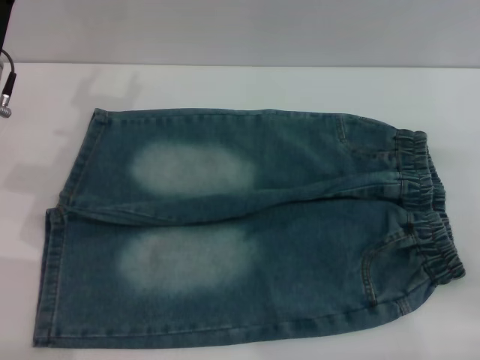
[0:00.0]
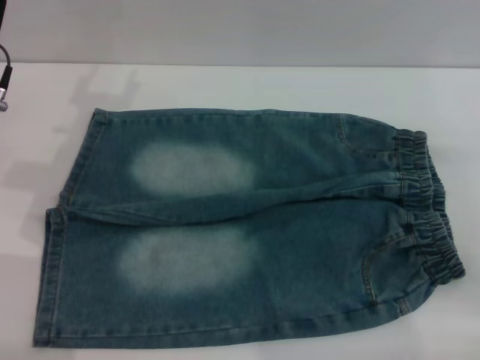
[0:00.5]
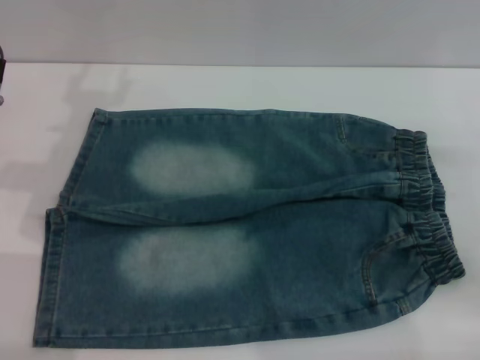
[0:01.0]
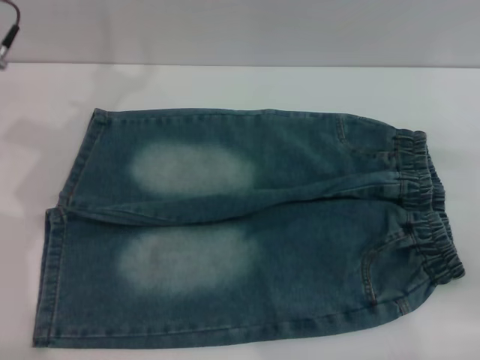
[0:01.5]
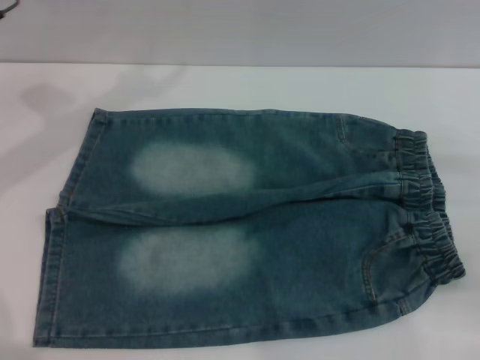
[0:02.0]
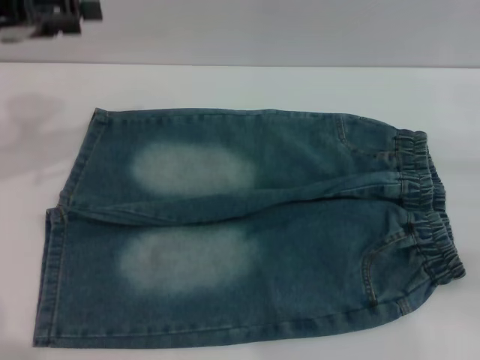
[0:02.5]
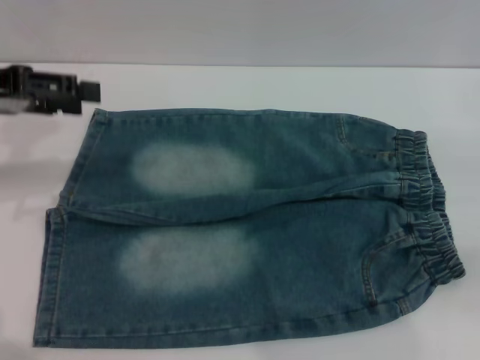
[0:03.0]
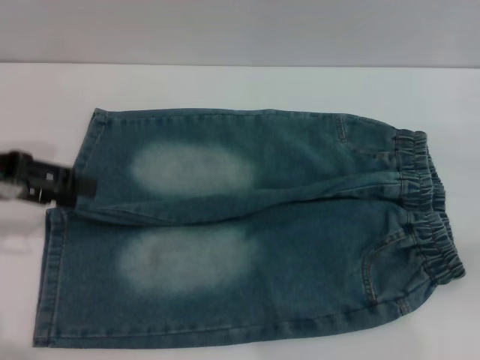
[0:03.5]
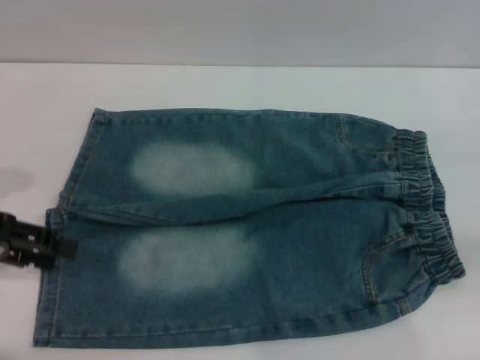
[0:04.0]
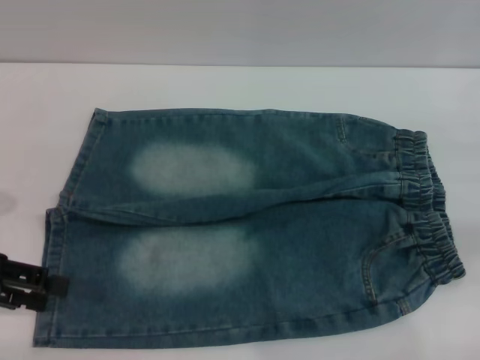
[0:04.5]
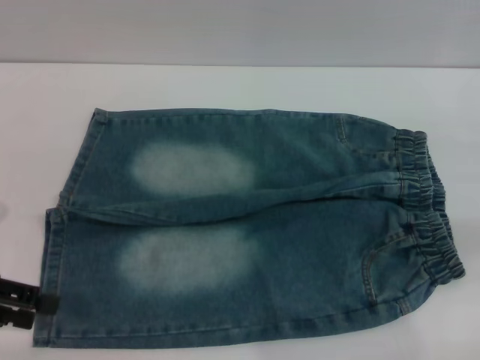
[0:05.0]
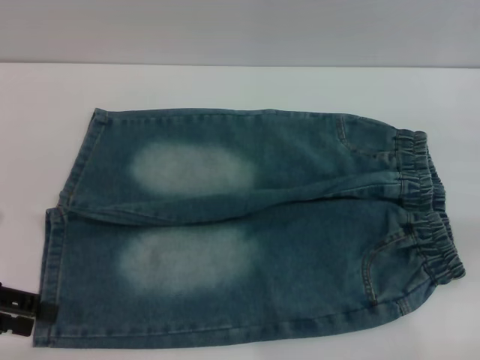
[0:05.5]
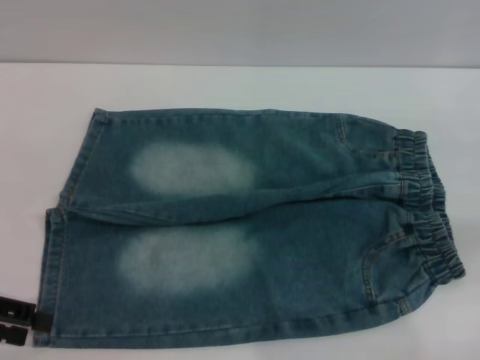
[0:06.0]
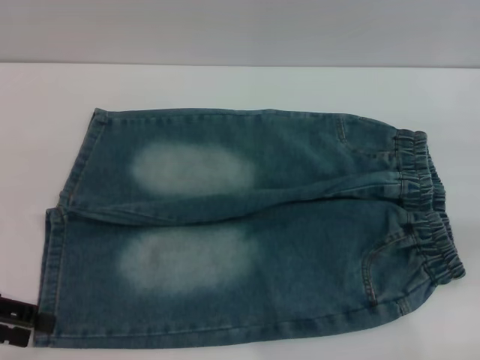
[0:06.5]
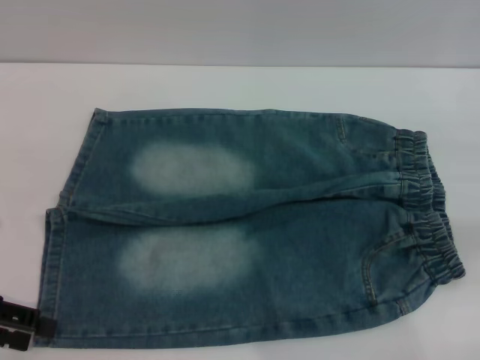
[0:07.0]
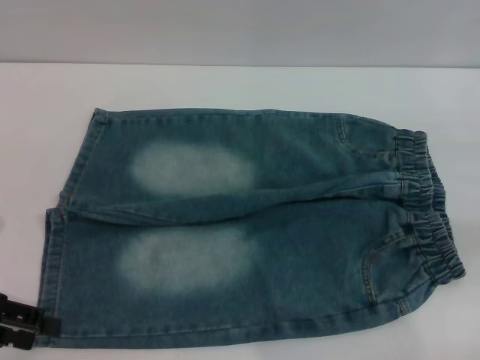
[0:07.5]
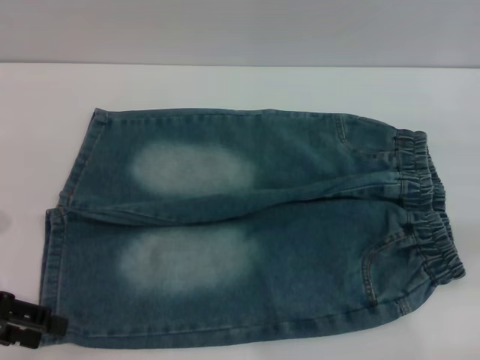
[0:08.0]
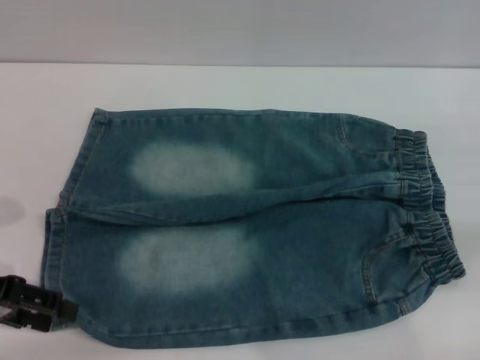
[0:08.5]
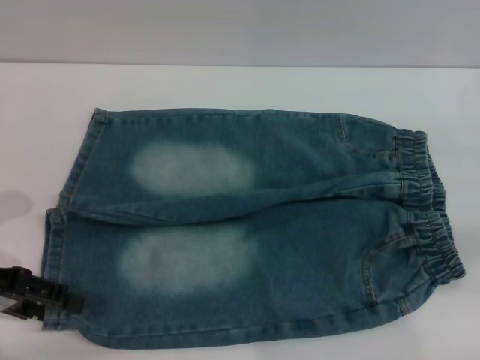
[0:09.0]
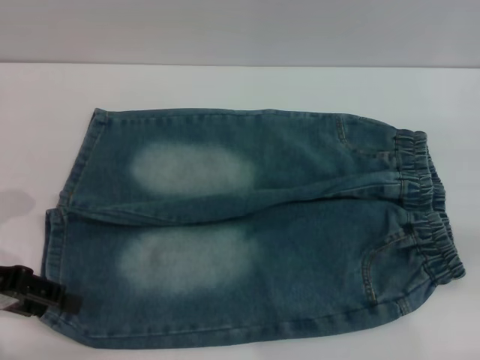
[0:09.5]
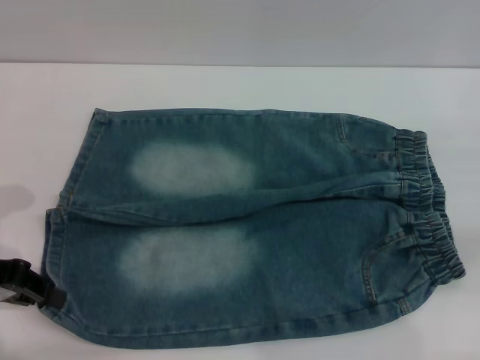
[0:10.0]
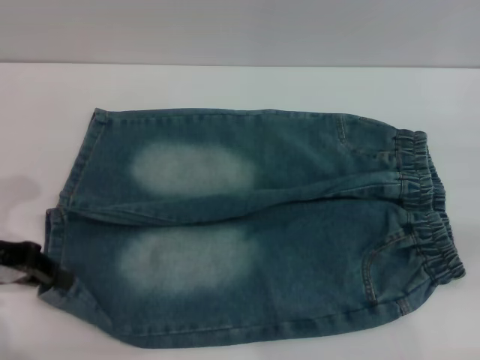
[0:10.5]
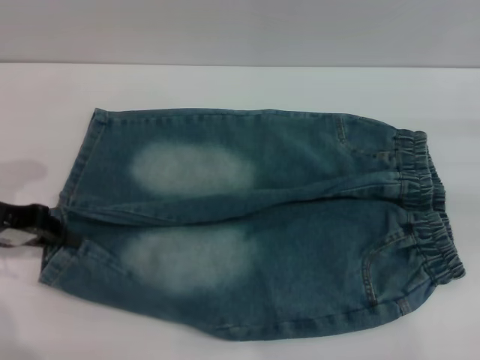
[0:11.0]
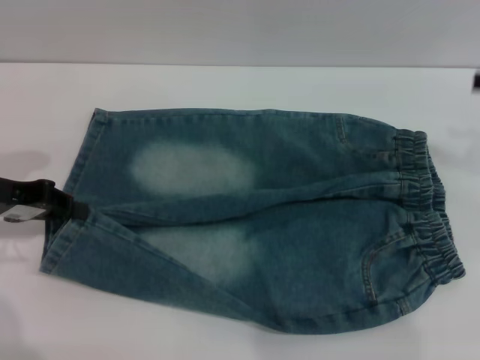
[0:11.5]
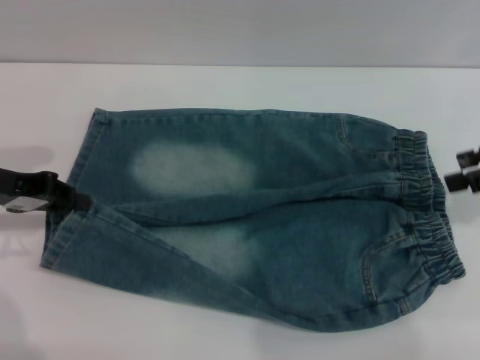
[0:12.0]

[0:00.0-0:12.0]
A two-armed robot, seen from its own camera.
0:00.0 to 0:02.0: The left gripper goes some 10 cm upward and forward.
0:02.0 to 0:04.0: The left gripper moves backward, downward and to the left, roughly 15 cm.
0:04.0 to 0:06.0: The left gripper ends up some 5 cm from where it was.
0:08.0 to 0:10.0: The left gripper closes.
0:10.0 to 0:12.0: The left gripper is displaced forward by about 5 cm. Meanwhile the right gripper moves upward, to the left and forward, roughly 10 cm.

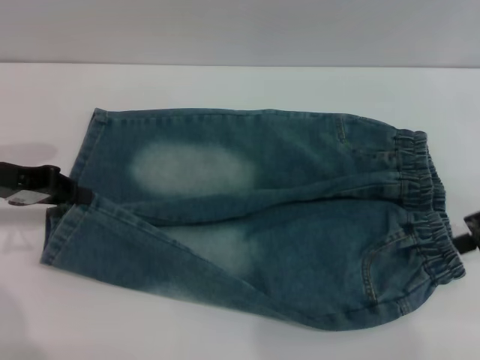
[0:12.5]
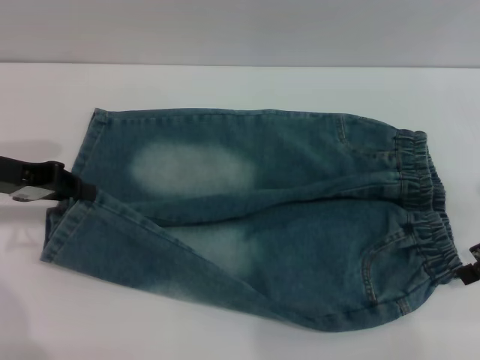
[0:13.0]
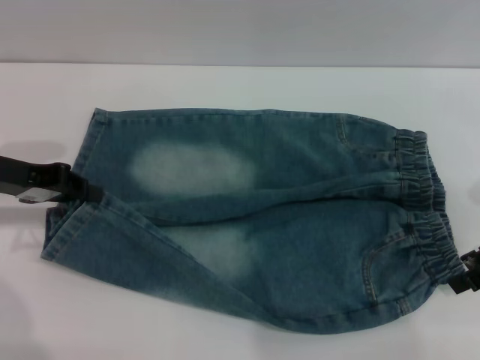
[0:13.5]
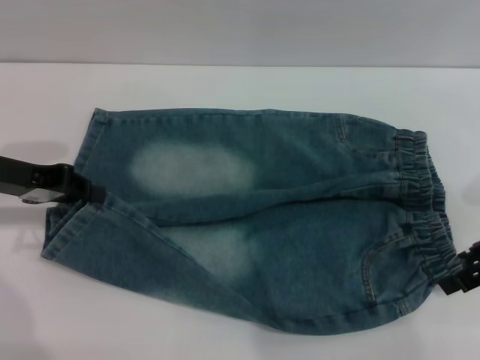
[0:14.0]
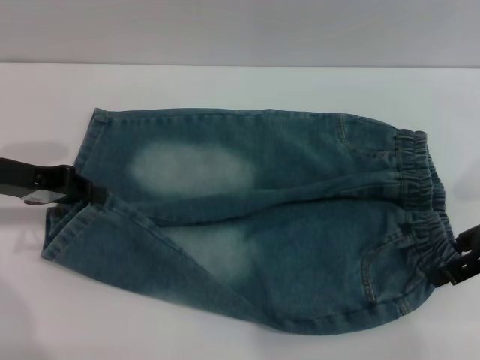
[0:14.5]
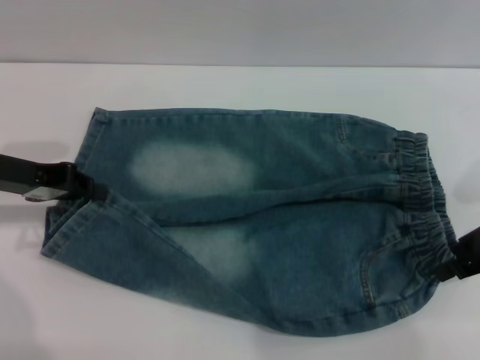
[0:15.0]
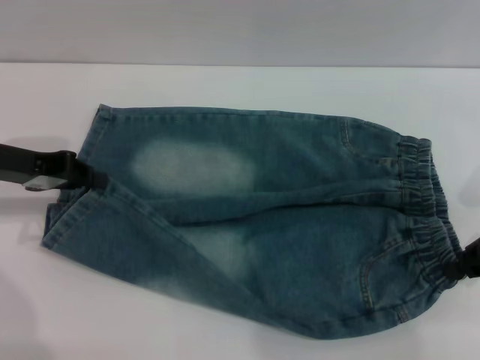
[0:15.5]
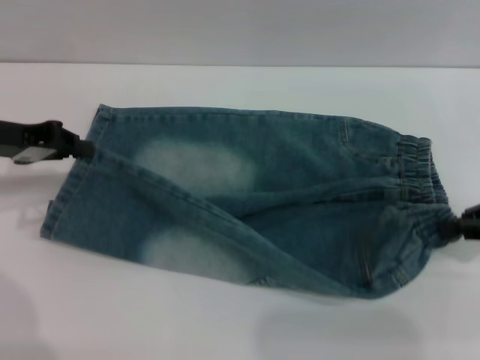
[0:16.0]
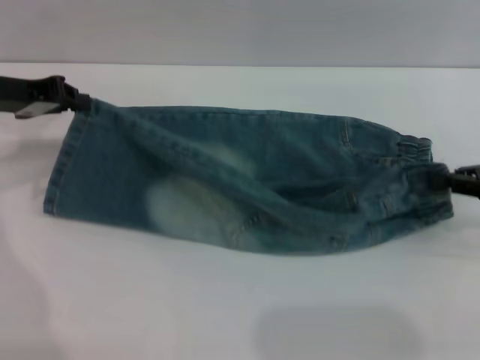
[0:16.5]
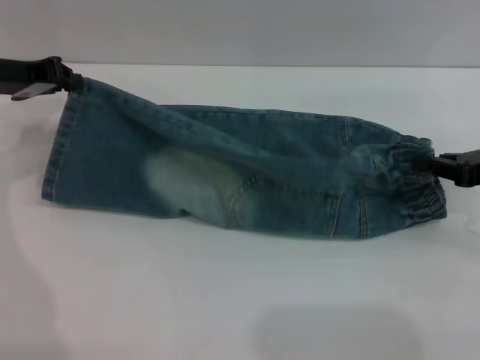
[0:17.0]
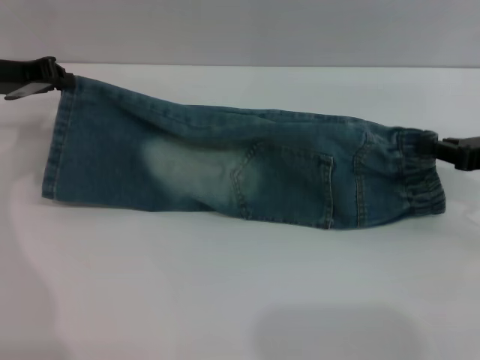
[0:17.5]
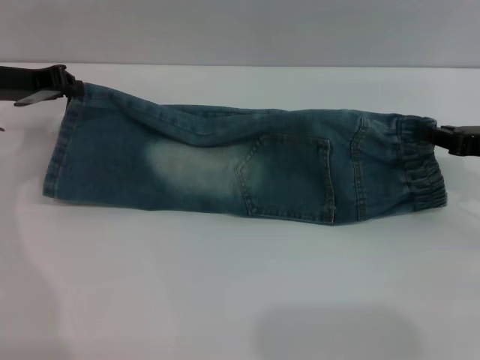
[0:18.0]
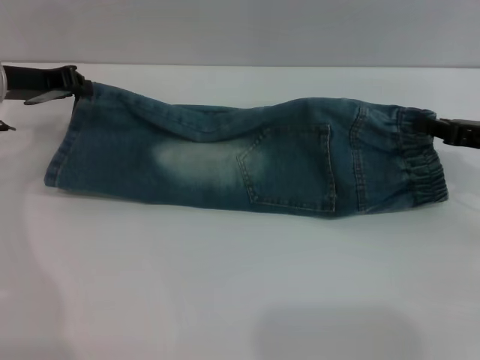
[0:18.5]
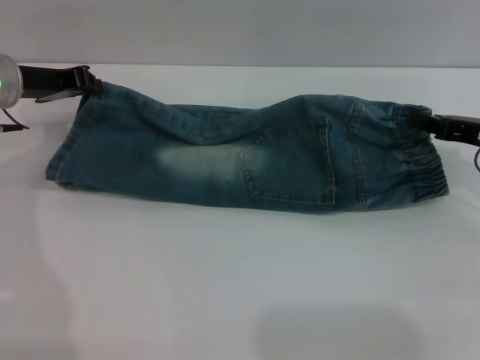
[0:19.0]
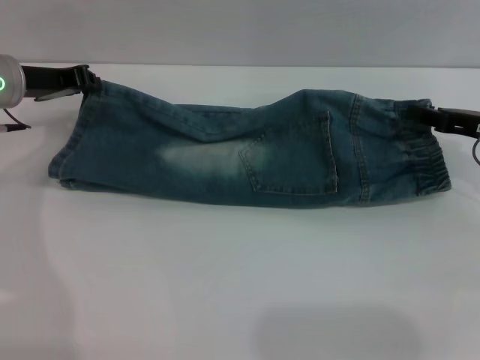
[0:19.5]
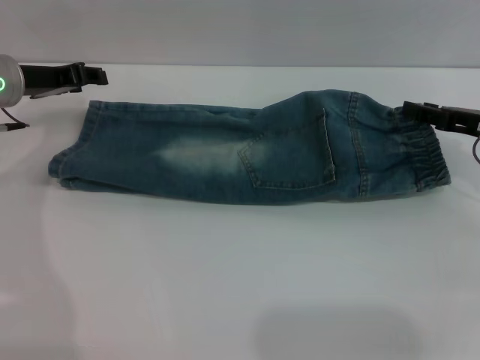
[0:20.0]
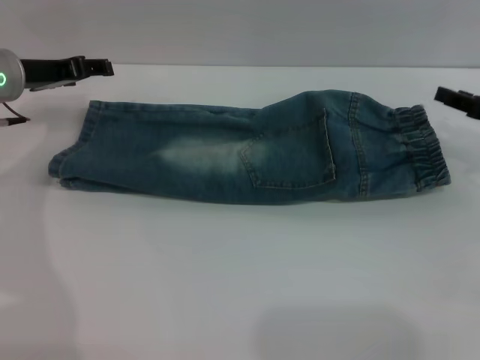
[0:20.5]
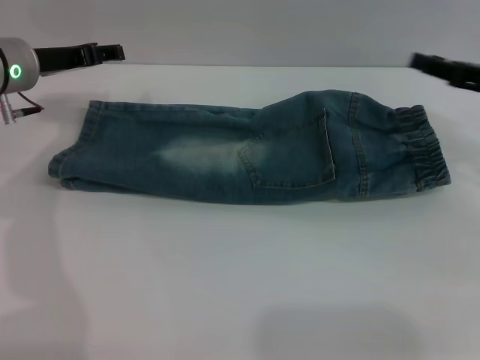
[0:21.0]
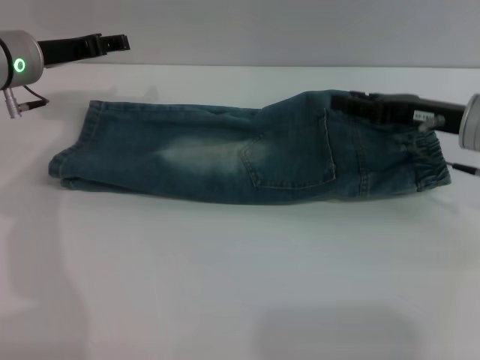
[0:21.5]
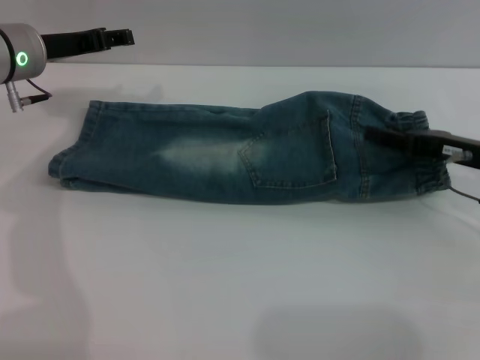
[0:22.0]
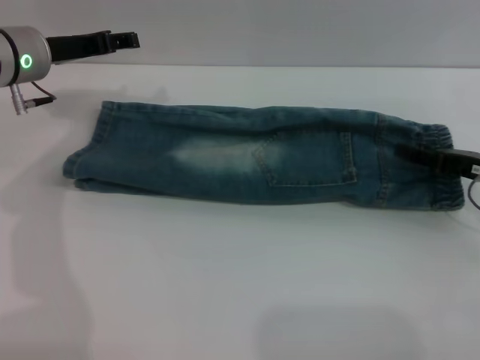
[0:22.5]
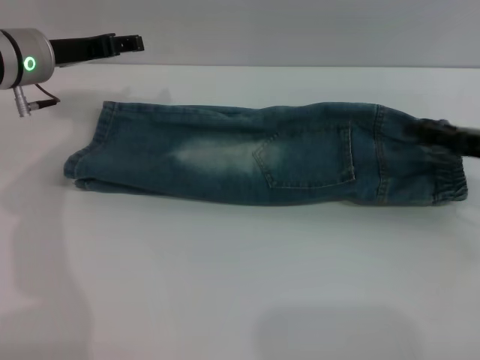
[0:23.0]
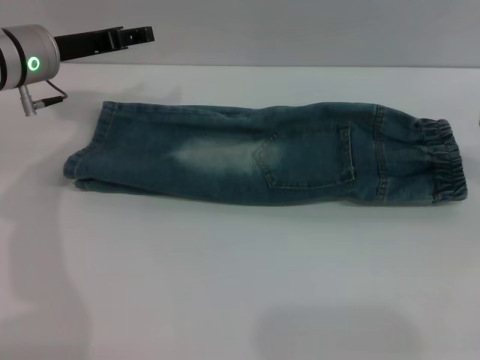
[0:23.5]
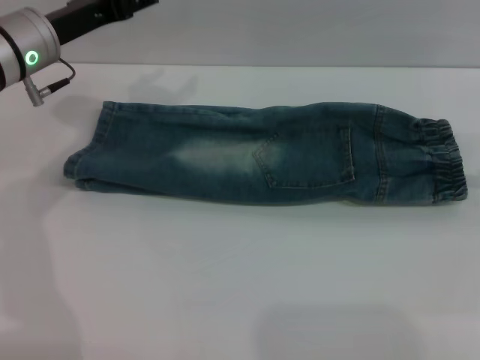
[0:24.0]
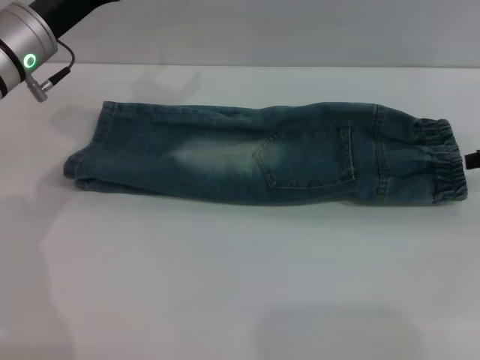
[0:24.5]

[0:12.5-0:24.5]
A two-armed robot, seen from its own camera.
Step, 0:12.5 to 0:20.0: Fold the bottom of the pants upward with both grippers.
0:12.5 to 0:14.5: There are only small adjustments of the grippers.
0:14.5 to 0:16.5: The left gripper moves forward, about 5 cm; the right gripper closes.
0:16.5 to 0:18.5: The right gripper shifts by roughly 5 cm.
0:18.5 to 0:20.5: The right gripper opens its fingers. The left gripper opens.
0:20.5 to 0:22.5: The right gripper goes to the left and returns, about 10 cm each way.
0:22.5 to 0:24.5: The right gripper moves upward and to the right, approximately 10 cm.

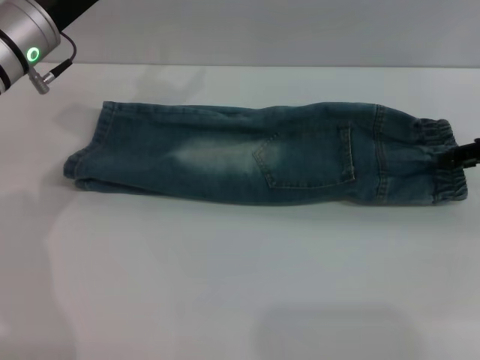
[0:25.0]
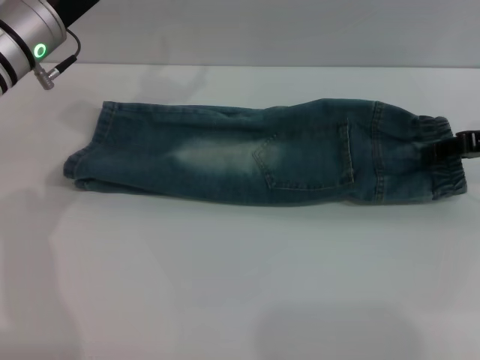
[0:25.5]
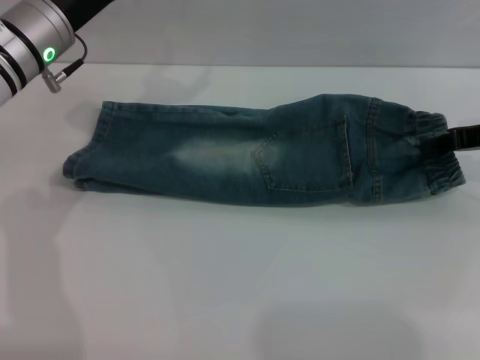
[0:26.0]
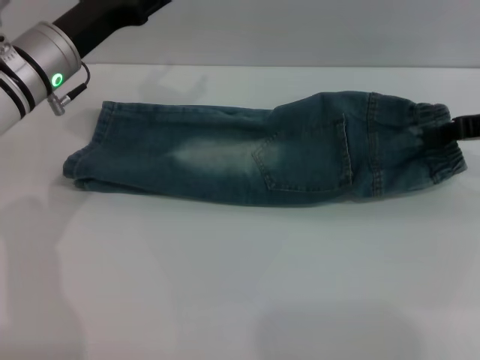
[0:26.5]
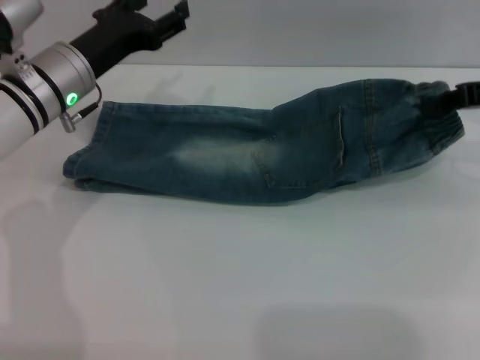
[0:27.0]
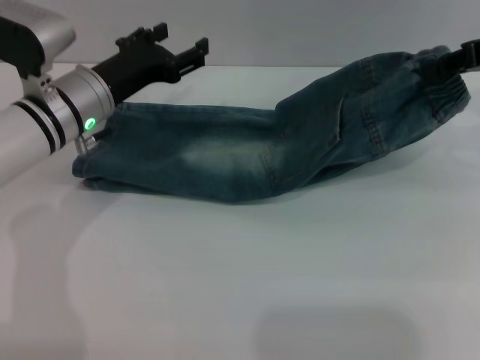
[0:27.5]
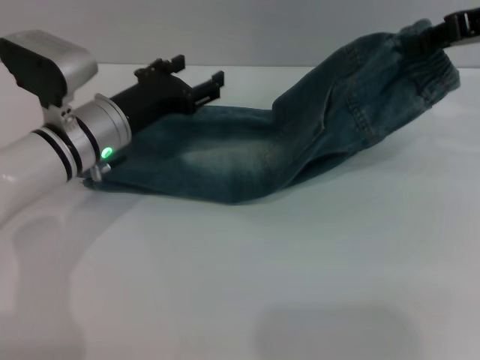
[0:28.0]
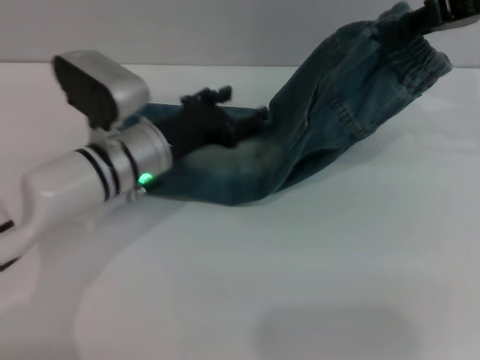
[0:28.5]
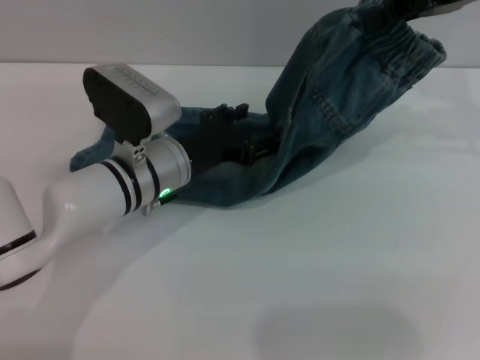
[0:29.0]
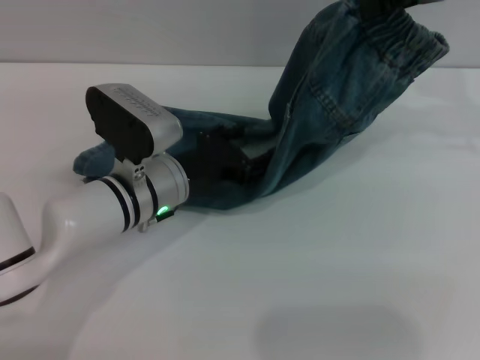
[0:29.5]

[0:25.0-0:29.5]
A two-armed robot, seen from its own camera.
0:25.0 to 0:27.0: The right gripper travels upward by roughly 5 cm, and closes.
0:27.0 to 0:29.5: The right gripper moves upward and to the left, about 15 cm. The left gripper moves to the right, downward and backward, roughly 15 cm.
